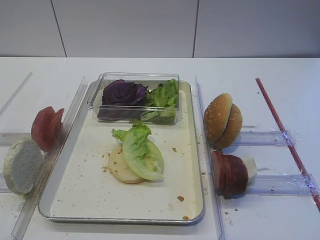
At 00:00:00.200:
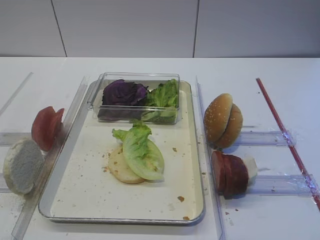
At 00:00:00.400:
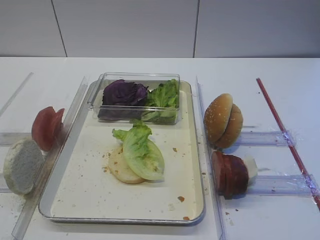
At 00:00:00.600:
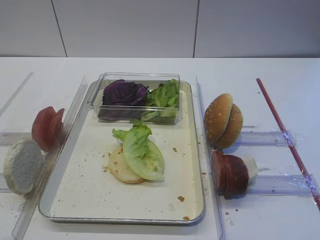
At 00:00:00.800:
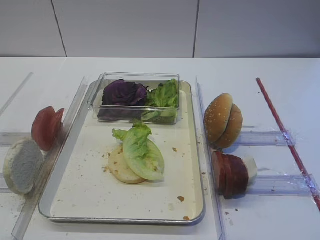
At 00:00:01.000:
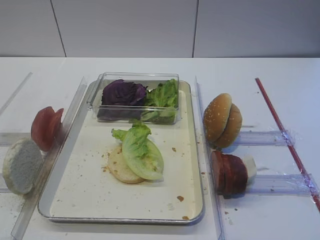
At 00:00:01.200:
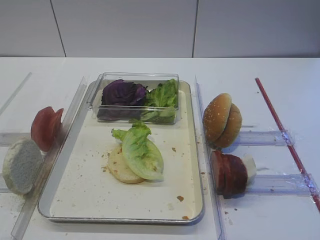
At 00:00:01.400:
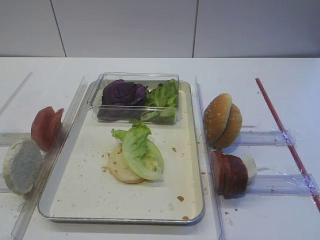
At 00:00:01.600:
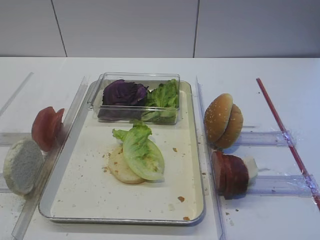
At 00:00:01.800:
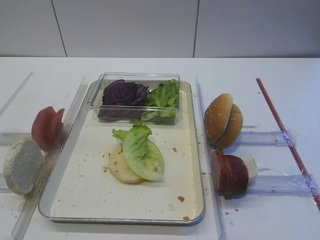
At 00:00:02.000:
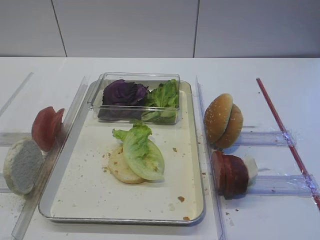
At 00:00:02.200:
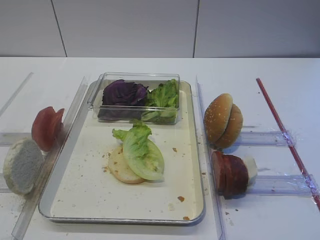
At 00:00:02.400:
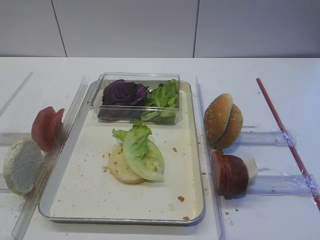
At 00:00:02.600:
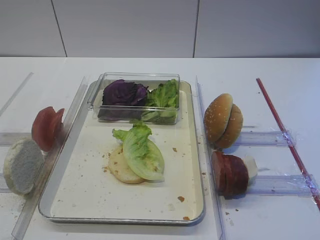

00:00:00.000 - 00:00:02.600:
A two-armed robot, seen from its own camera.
00:00:01.200 - 00:00:02.600: The grippers make only small movements.

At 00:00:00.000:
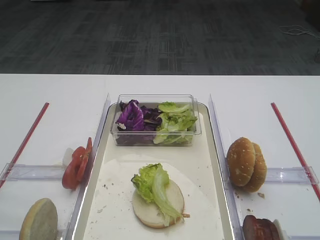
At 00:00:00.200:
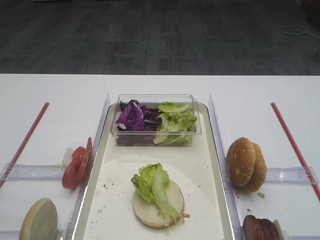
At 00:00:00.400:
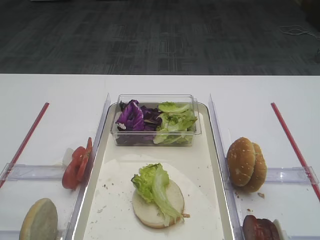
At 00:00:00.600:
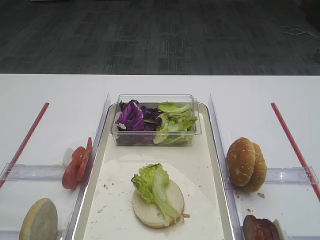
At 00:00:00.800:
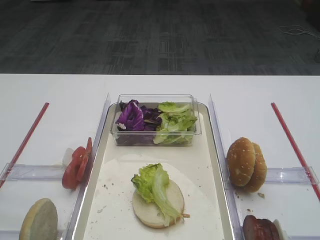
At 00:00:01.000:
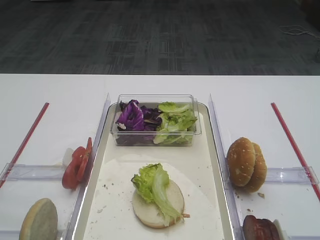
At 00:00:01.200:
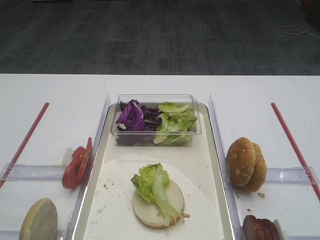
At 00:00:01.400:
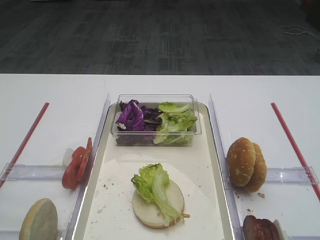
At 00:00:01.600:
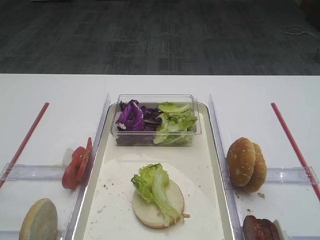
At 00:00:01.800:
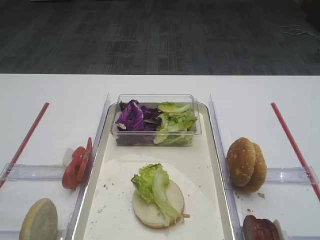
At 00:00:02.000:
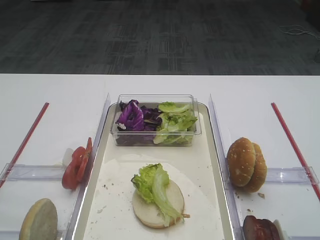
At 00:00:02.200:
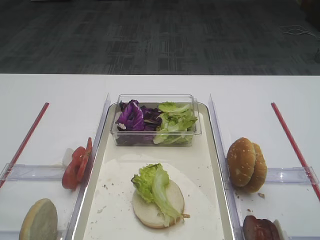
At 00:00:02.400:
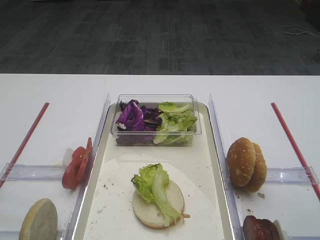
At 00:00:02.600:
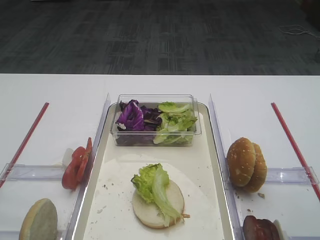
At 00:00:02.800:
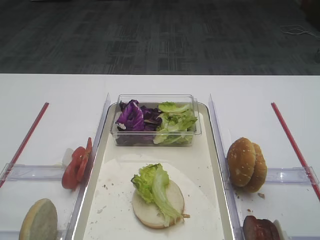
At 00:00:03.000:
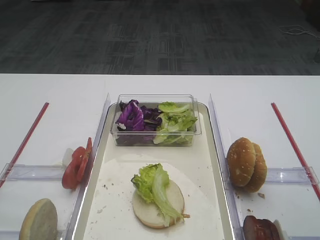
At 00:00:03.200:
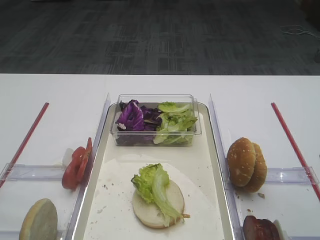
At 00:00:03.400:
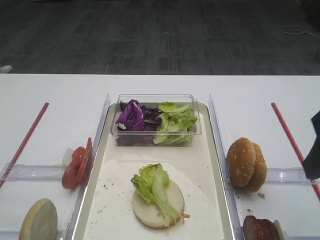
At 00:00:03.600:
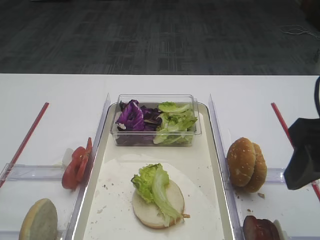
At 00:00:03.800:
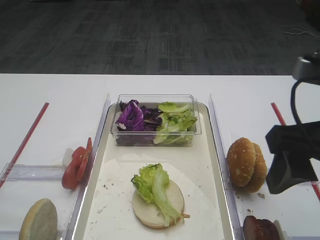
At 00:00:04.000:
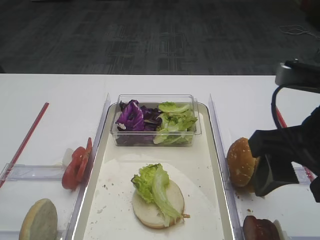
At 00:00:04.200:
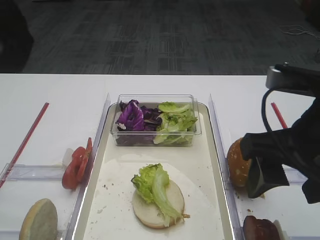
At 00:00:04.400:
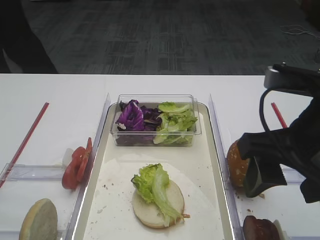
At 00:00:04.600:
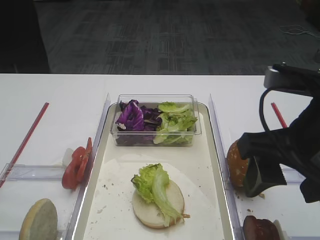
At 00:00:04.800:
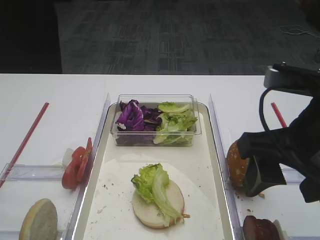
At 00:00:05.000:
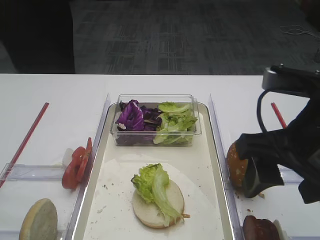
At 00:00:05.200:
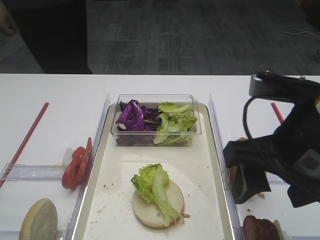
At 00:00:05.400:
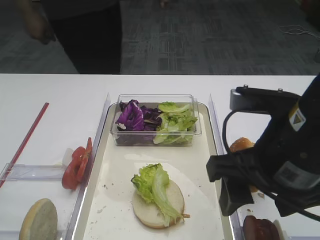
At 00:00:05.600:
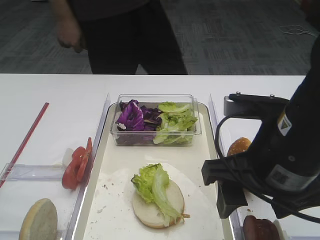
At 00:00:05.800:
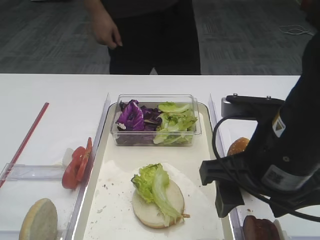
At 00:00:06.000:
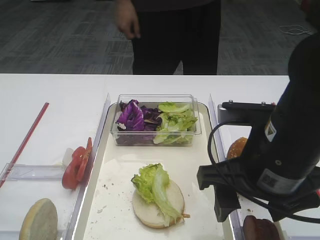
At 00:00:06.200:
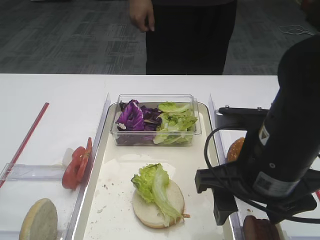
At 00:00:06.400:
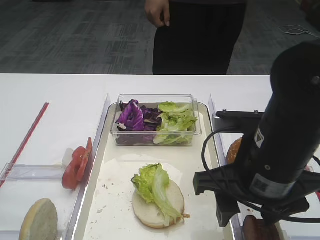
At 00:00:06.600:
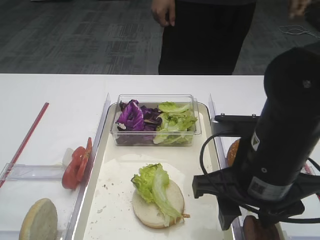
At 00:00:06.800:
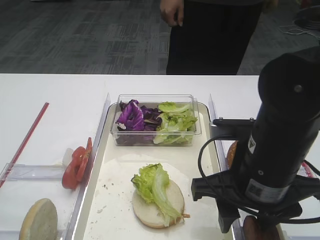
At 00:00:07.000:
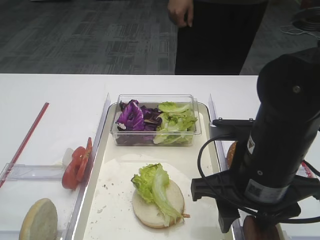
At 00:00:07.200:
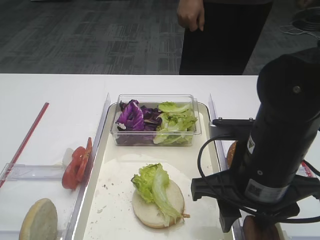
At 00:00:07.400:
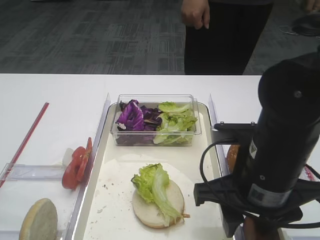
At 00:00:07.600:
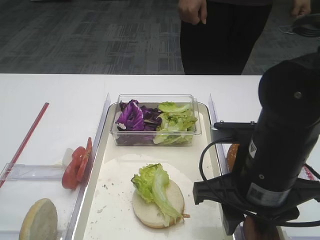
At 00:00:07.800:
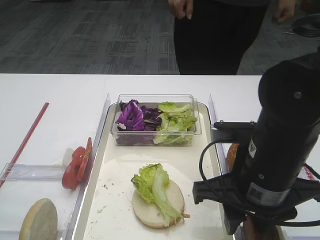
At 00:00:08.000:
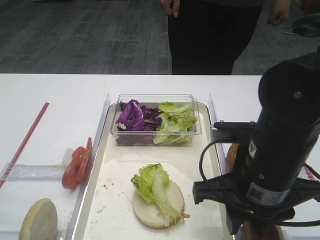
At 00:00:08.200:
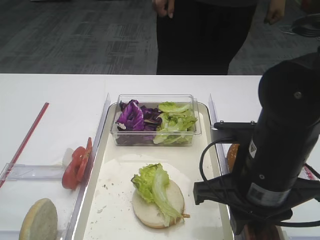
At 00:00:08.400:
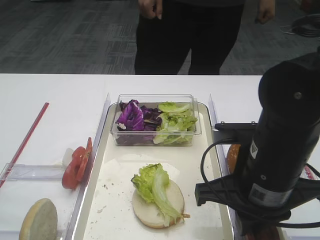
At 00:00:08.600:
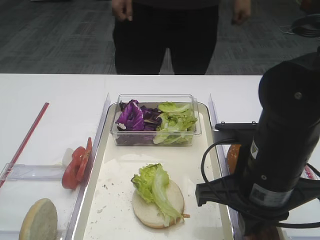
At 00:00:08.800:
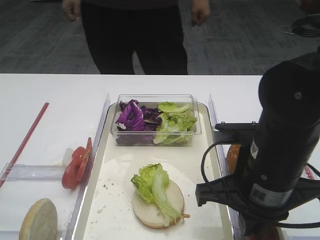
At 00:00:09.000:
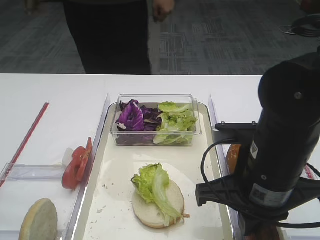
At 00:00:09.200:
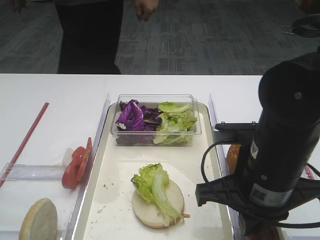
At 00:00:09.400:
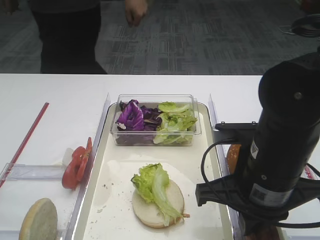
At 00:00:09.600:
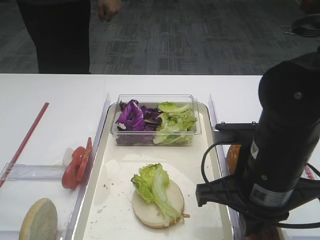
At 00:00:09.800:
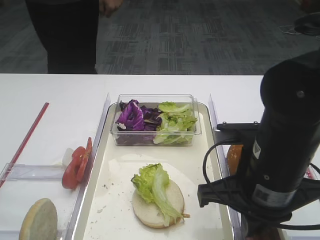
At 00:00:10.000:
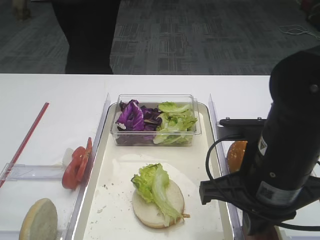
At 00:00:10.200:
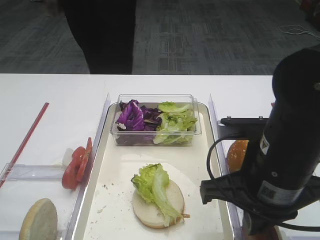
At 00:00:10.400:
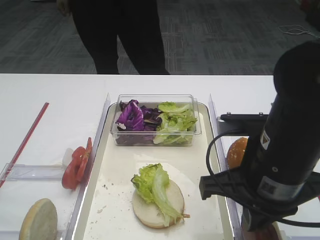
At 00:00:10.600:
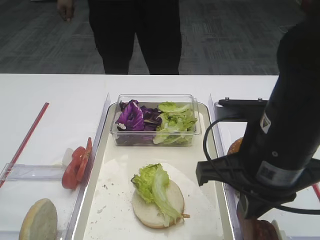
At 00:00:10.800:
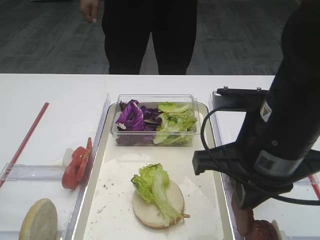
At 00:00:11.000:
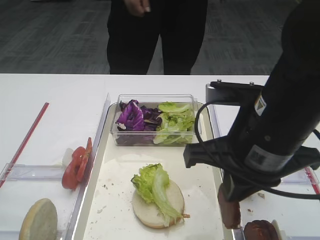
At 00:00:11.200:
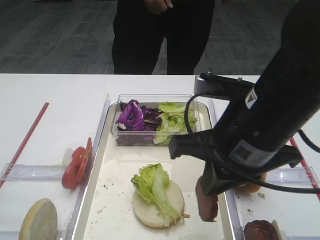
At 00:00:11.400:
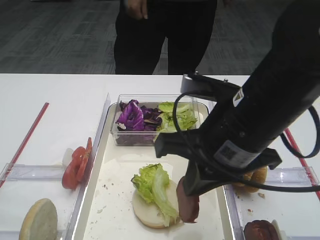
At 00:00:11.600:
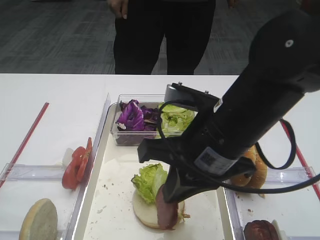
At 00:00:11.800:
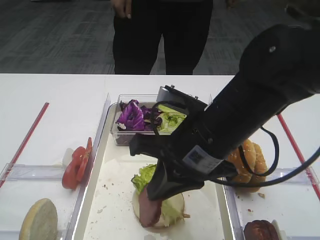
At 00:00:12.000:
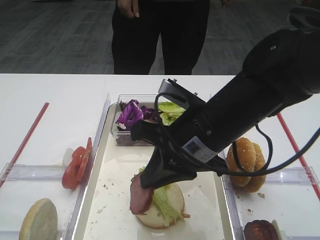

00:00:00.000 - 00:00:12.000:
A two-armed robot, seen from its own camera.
Step, 00:00:00.000 - 00:00:10.600: Pick up the cutlet with the right gripper.
00:00:03.000 - 00:00:04.400: The right gripper goes approximately 10 cm to the left.
00:00:04.400 - 00:00:06.000: The right gripper shifts by some 5 cm.
00:00:06.000 - 00:00:07.600: The right gripper closes its fingers.
00:00:07.600 - 00:00:09.000: The right gripper closes up.
00:00:09.000 - 00:00:10.400: The grippers stay close to where they were, moving slightly.
00:00:10.400 - 00:00:12.000: The right gripper travels to the left and forward by roughly 10 cm.

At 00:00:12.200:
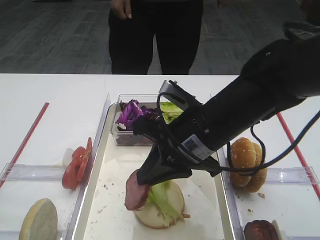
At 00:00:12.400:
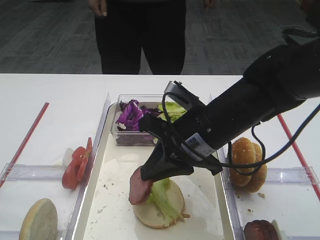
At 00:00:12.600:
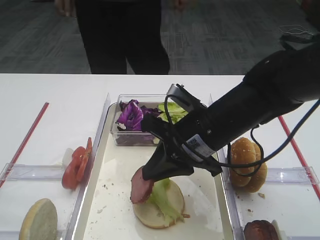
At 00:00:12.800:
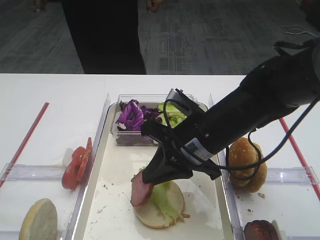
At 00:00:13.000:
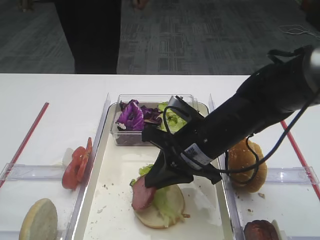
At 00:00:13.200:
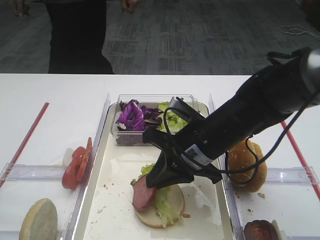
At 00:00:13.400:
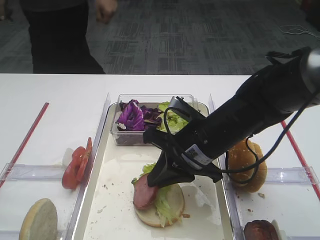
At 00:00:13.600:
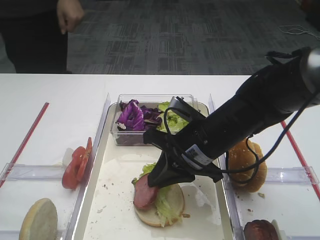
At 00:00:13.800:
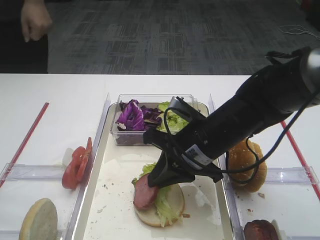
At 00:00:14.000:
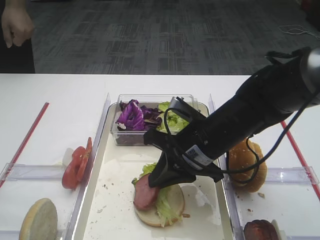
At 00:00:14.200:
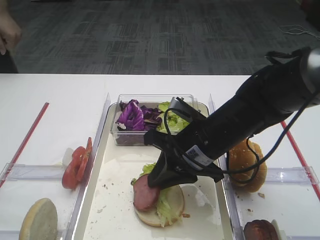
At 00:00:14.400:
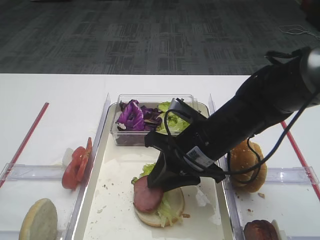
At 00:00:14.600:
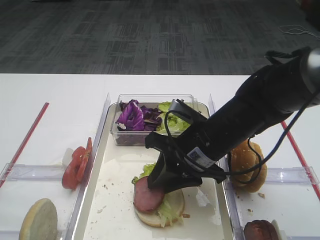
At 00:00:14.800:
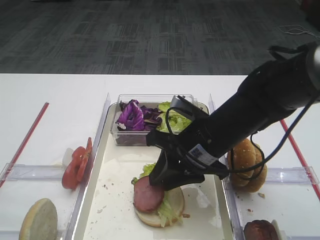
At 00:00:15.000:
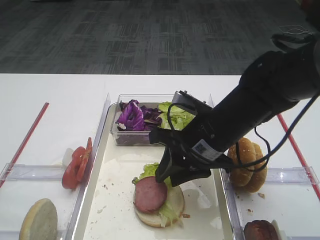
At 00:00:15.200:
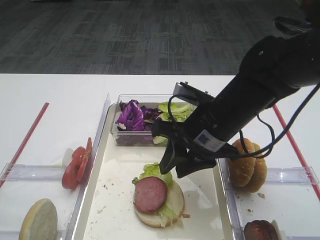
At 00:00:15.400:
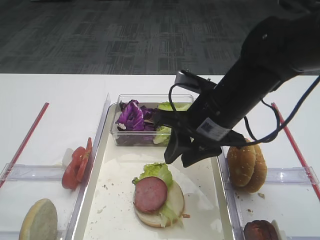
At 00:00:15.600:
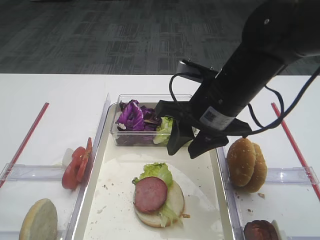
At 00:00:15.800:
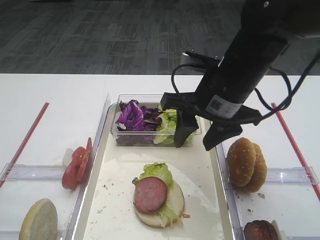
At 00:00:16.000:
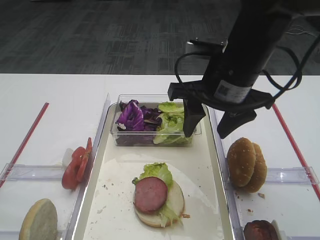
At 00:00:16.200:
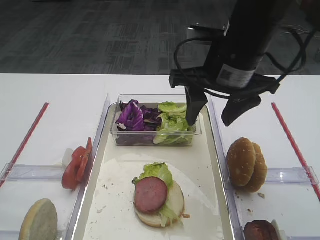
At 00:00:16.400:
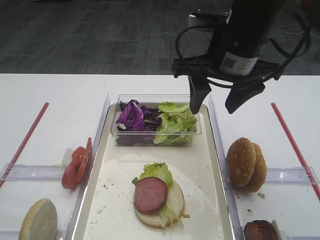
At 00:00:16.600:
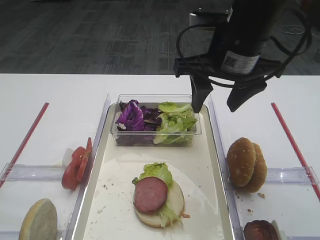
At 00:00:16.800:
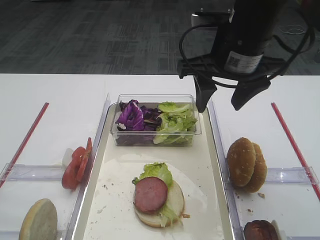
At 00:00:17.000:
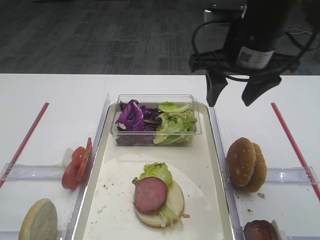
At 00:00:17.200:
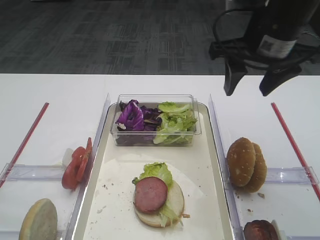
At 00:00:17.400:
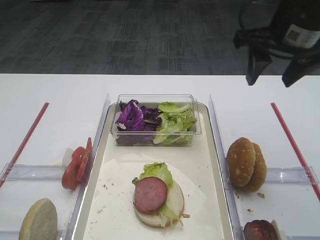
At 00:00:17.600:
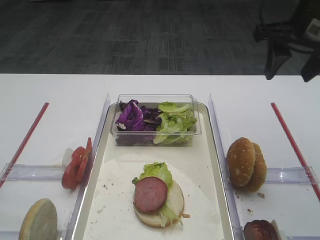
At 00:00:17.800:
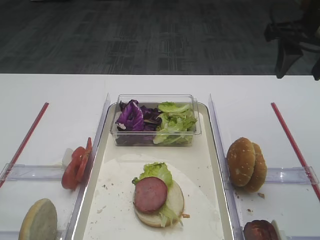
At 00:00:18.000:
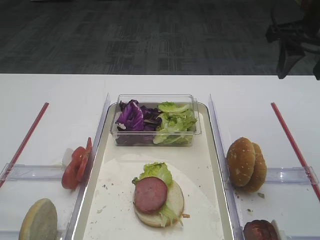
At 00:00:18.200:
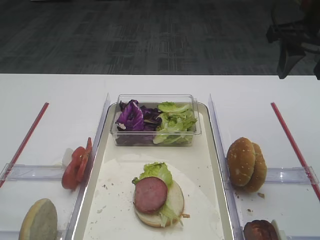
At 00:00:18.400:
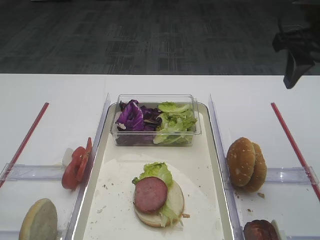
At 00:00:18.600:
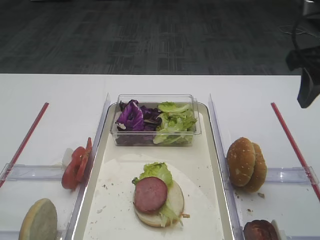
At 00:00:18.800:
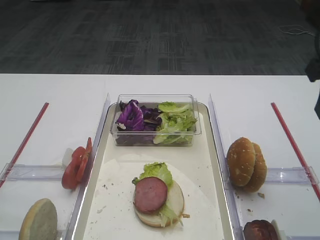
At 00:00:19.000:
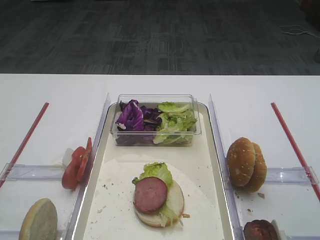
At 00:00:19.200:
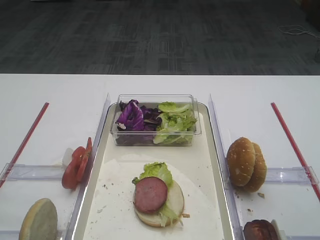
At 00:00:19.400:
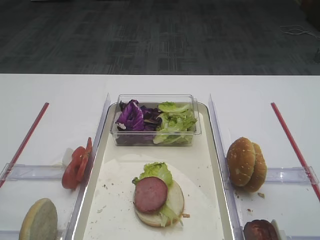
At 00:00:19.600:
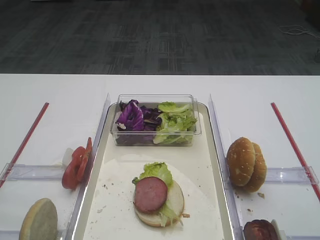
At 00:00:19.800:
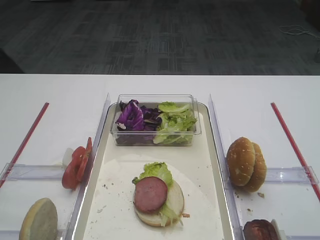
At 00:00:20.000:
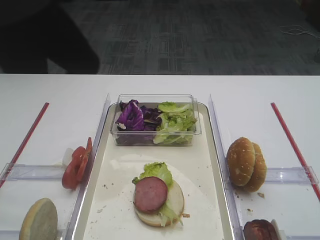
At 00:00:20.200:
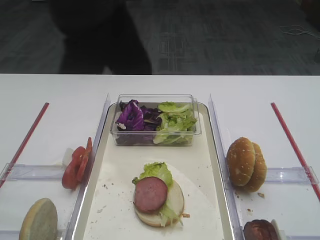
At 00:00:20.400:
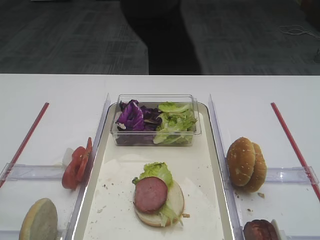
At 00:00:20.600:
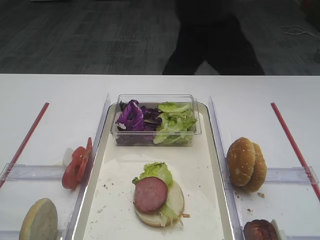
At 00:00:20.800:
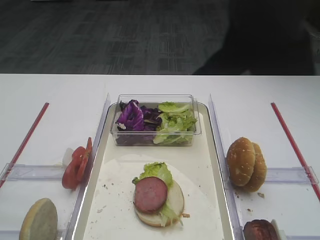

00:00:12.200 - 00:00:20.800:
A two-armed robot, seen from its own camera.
Step, 00:00:12.200 - 00:00:15.400: Place the cutlet on the lettuce leaf with the right gripper.
00:00:12.200 - 00:00:13.600: The right gripper shifts roughly 5 cm downward.
00:00:13.600 - 00:00:15.000: The right gripper opens up.
00:00:15.000 - 00:00:16.600: The right gripper travels upward by roughly 15 cm, and opens.
00:00:16.600 - 00:00:18.000: The right gripper heads to the right, covering some 15 cm.
00:00:18.000 - 00:00:19.400: The right gripper heads backward, covering roughly 20 cm.
00:00:19.400 - 00:00:20.800: The right gripper goes roughly 15 cm backward.
